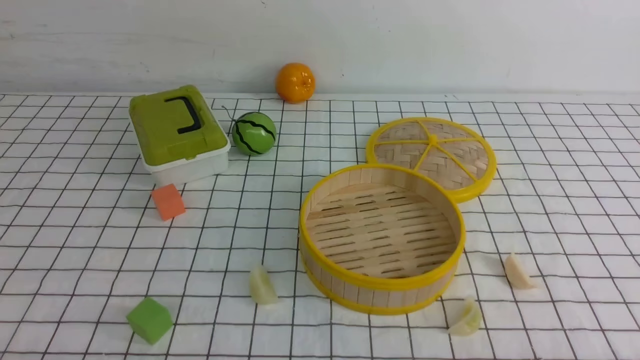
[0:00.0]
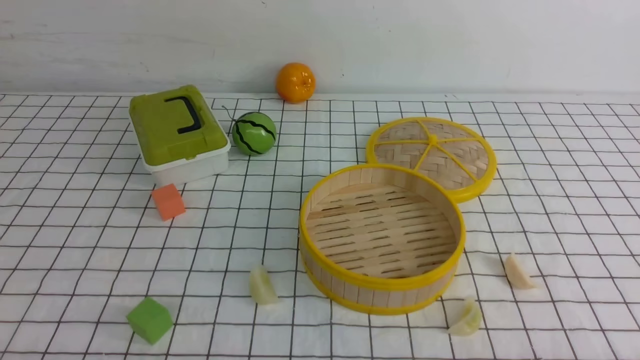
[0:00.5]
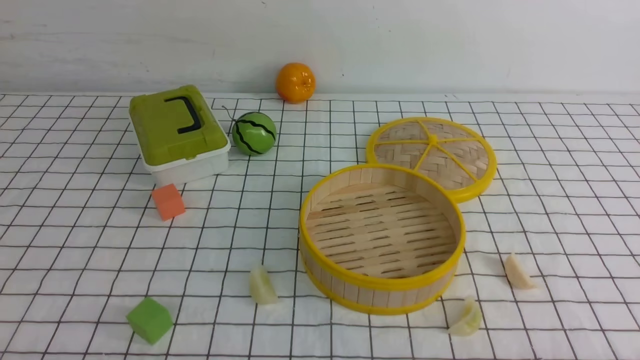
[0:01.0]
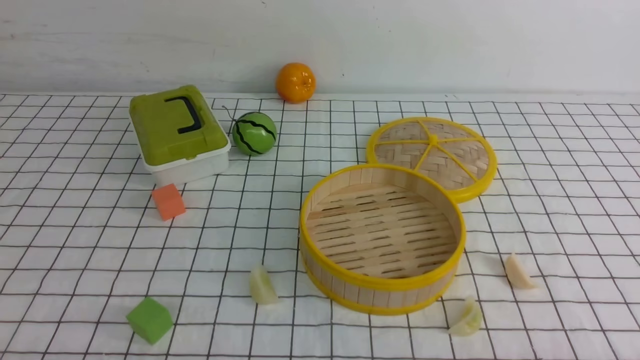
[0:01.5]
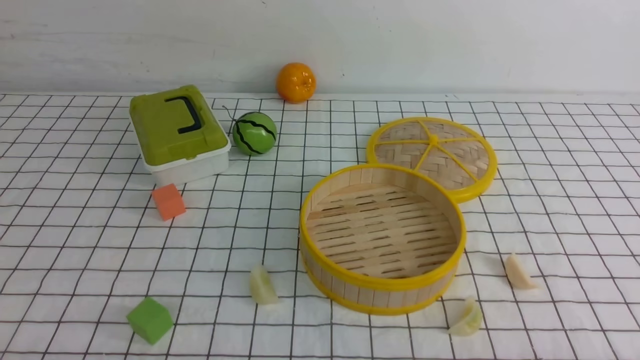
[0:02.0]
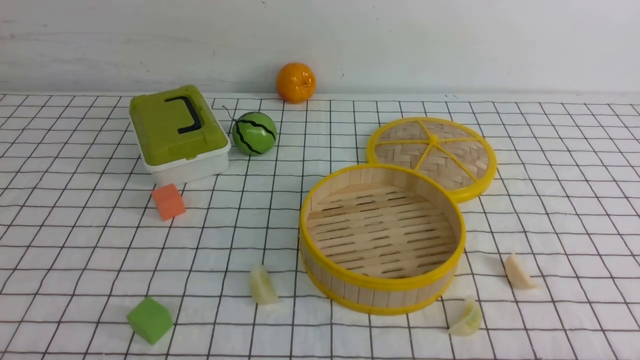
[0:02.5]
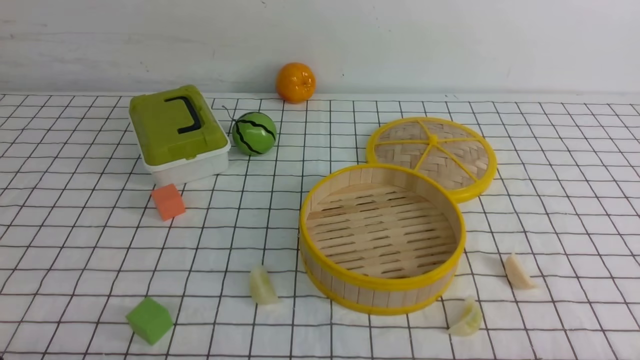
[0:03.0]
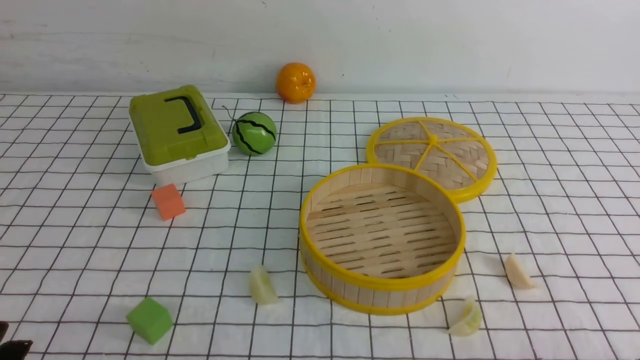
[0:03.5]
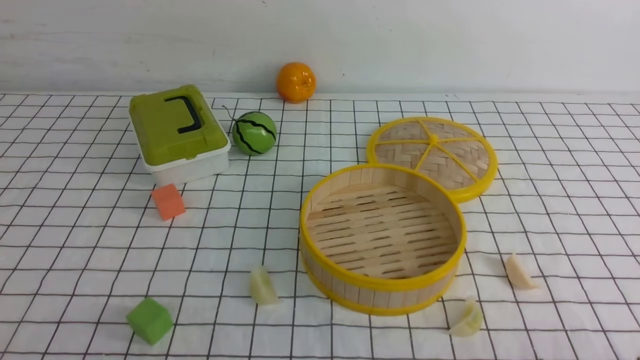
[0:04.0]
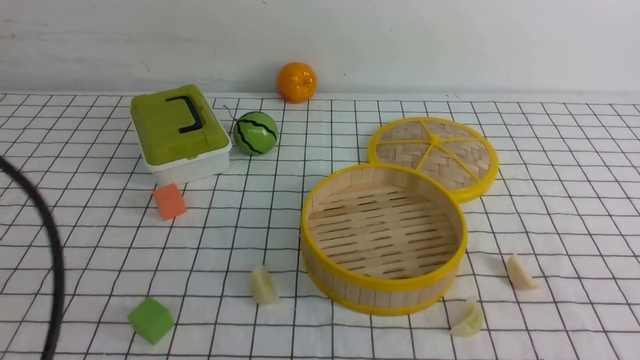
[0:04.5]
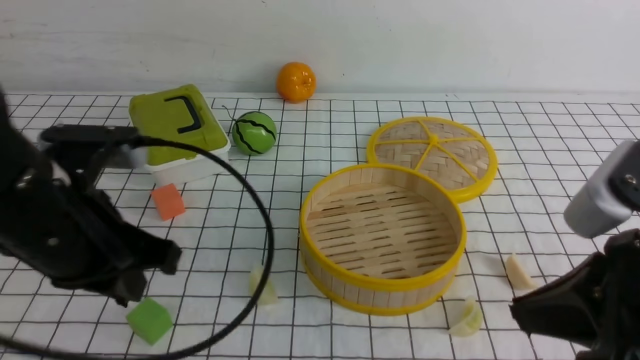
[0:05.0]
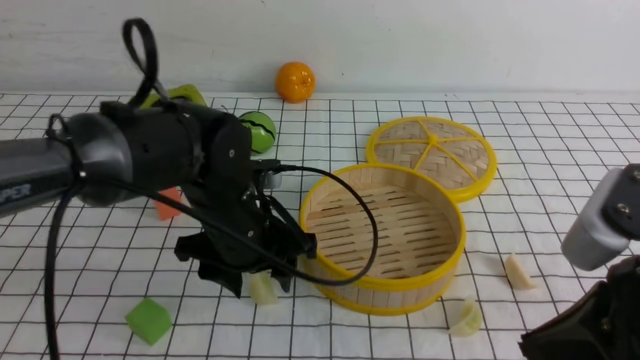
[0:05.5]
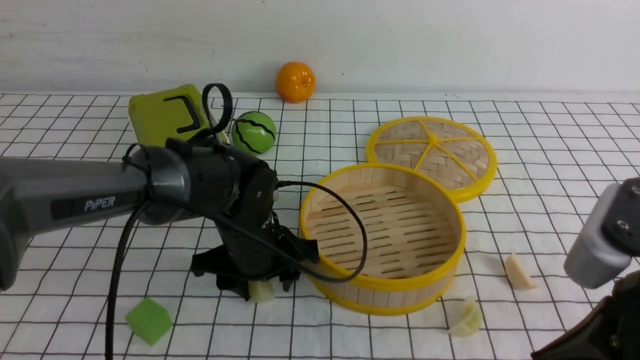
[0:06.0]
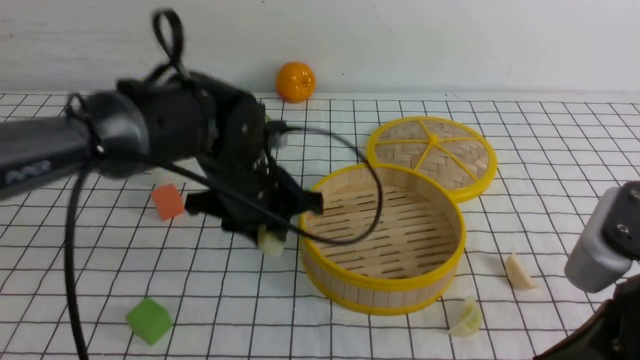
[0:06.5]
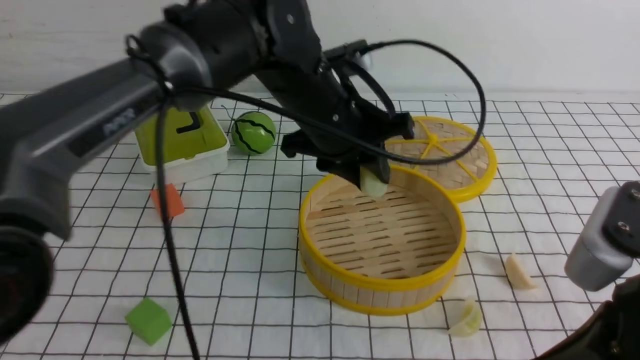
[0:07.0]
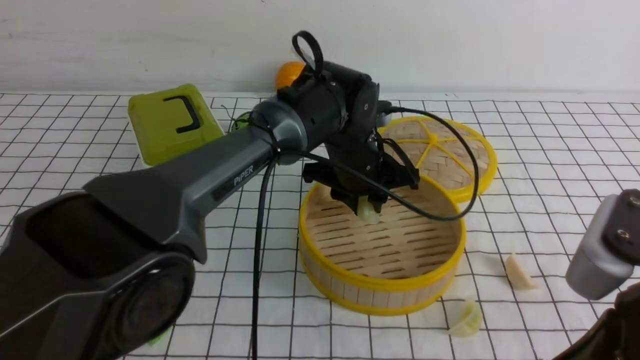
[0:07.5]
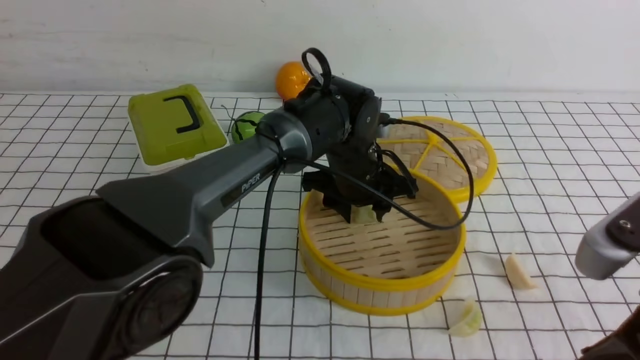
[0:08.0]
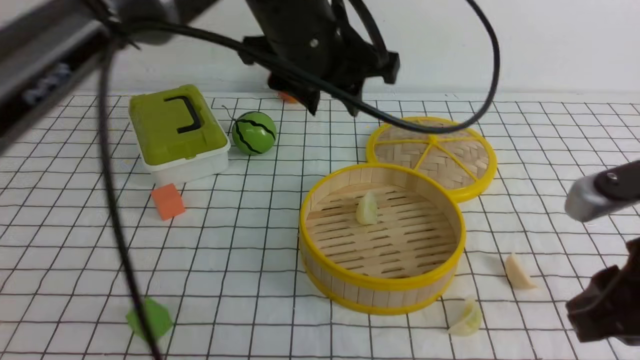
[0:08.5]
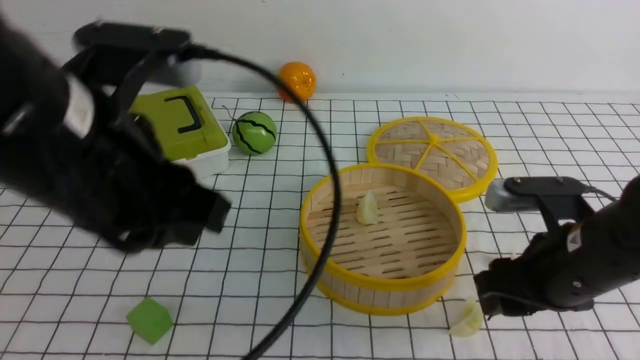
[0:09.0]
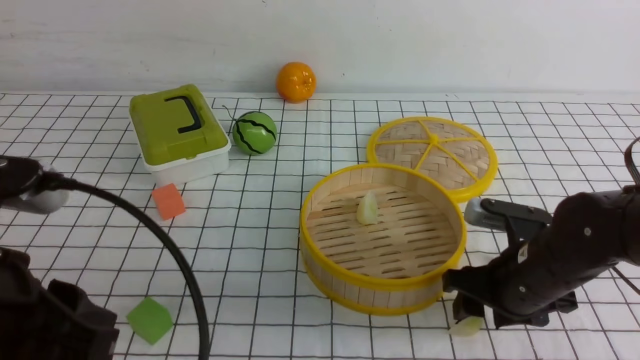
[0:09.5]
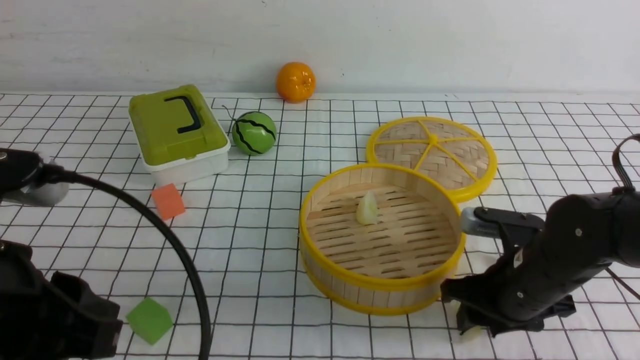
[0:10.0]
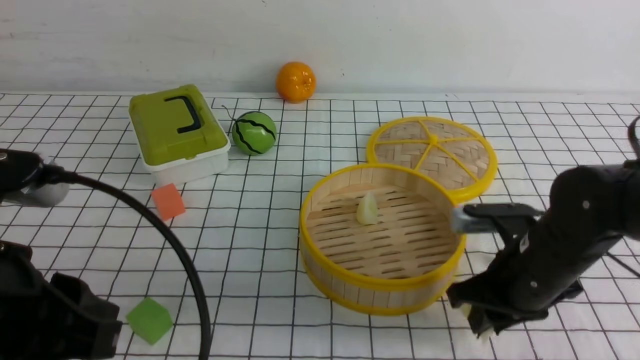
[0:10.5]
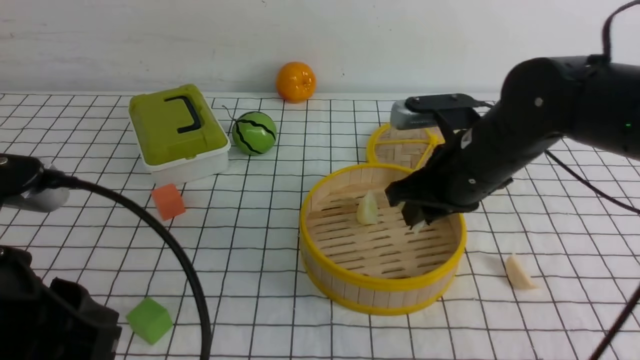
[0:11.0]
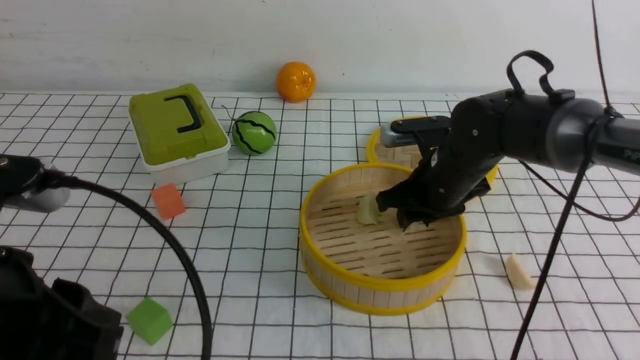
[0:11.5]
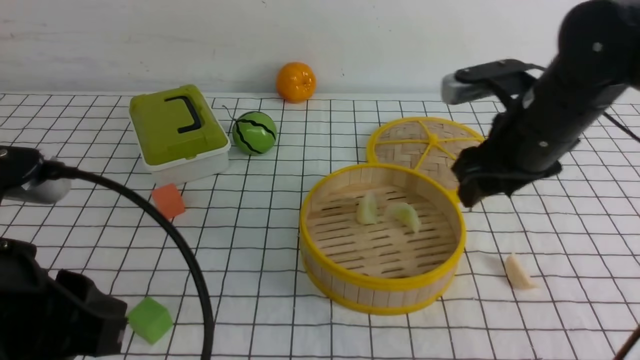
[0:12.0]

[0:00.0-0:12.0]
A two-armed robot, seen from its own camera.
Task of the whole recording: put the dumplings into the steamer on the table with the white tablecloth.
Step, 0:00.0 to 0:06.5: use the left arm to grab a dumpling.
Step, 0:07.0 to 0:08.0: use the left arm to put the dumpling into the steamer.
Step, 0:08.5 to 0:10.5: use the right arm to grab a dumpling.
0:04.0 to 0:06.0: The right gripper goes some 15 cm upward, to the left and forward, and closes up. The left gripper moves forward and to the right, roughly 35 cm, and opens up.
0:06.0 to 0:08.0: The left gripper travels to the right and forward by some 15 cm, and moves about 15 cm upward and comes back.
0:08.0 to 0:10.0: The left gripper goes about 40 cm backward, to the left and upward. Meanwhile the right gripper travels downward and forward by roughly 20 cm, and opens up.
0:10.0 to 0:12.0: The right gripper goes some 15 cm upward and forward, and closes and opens again.

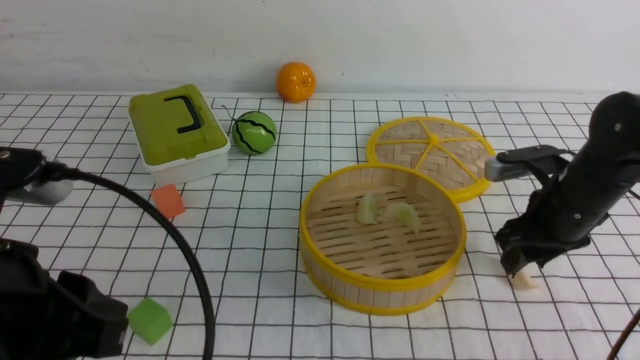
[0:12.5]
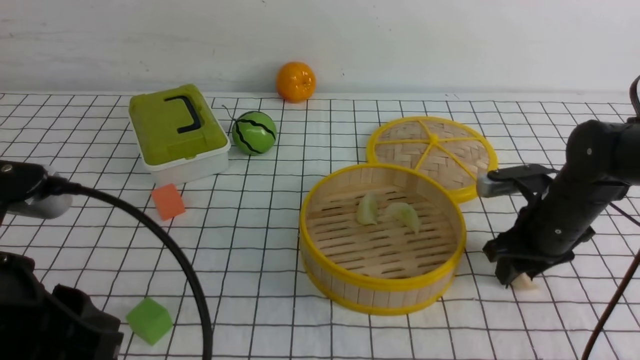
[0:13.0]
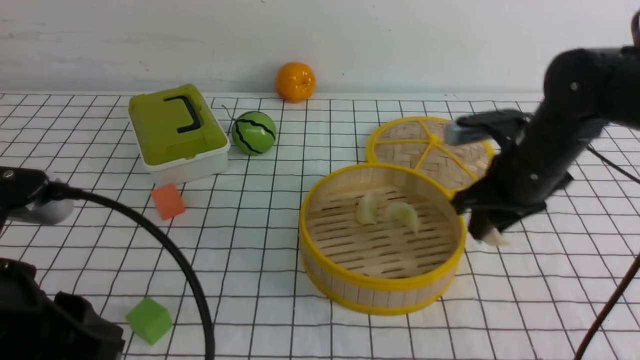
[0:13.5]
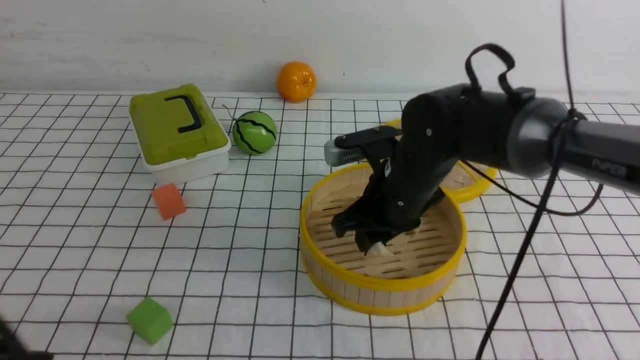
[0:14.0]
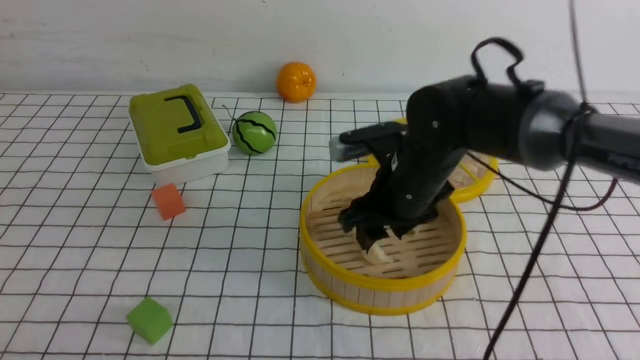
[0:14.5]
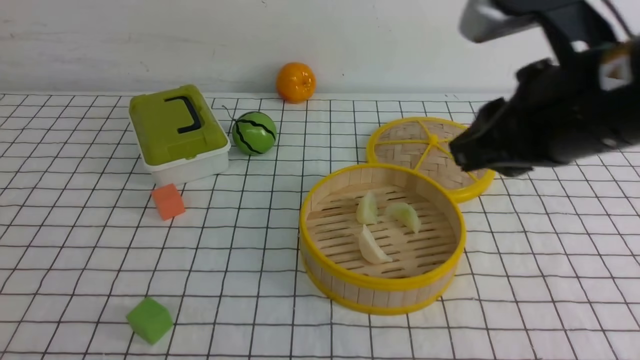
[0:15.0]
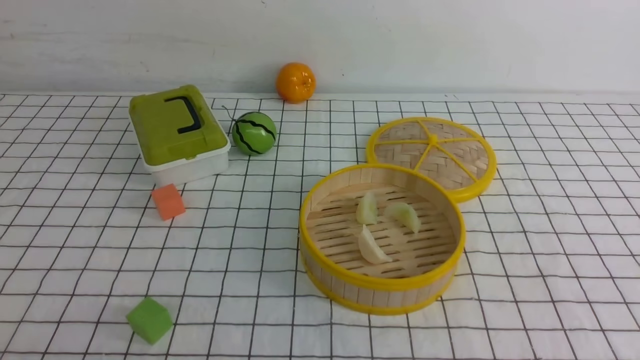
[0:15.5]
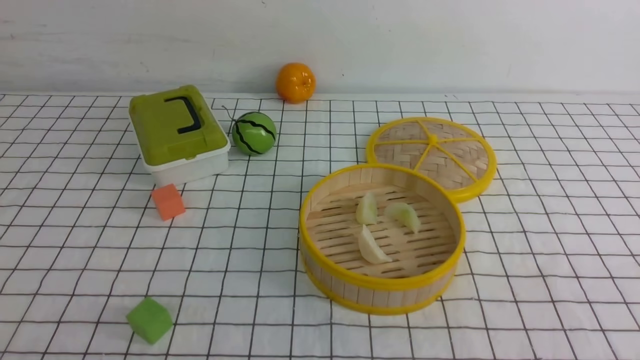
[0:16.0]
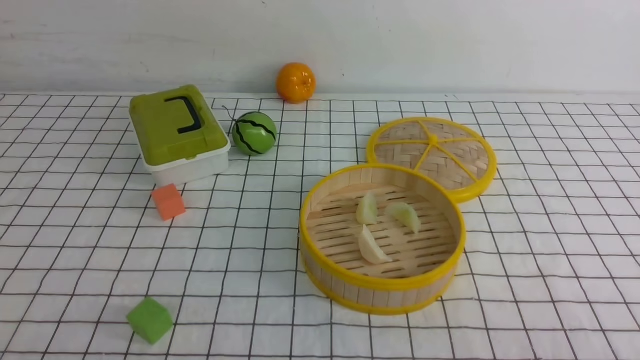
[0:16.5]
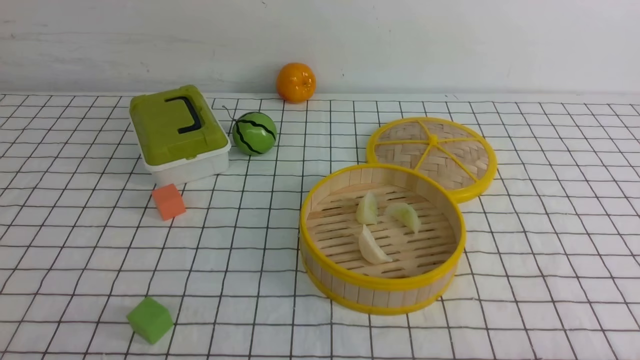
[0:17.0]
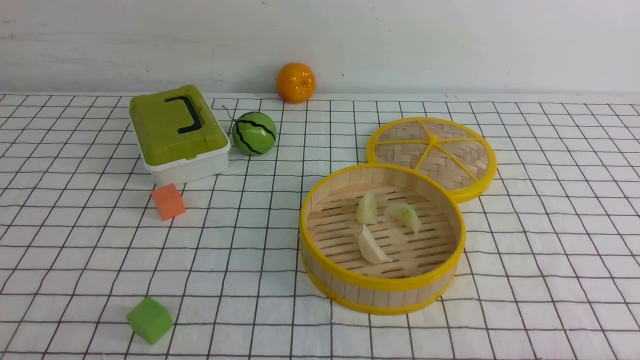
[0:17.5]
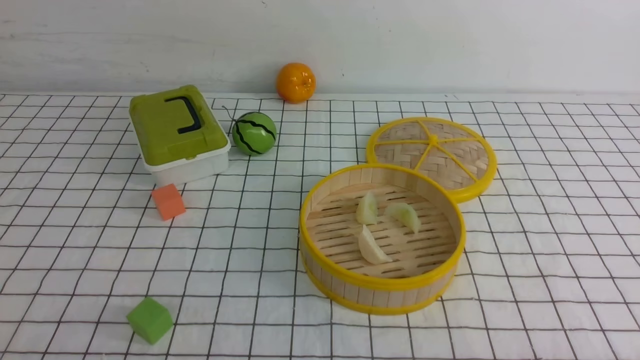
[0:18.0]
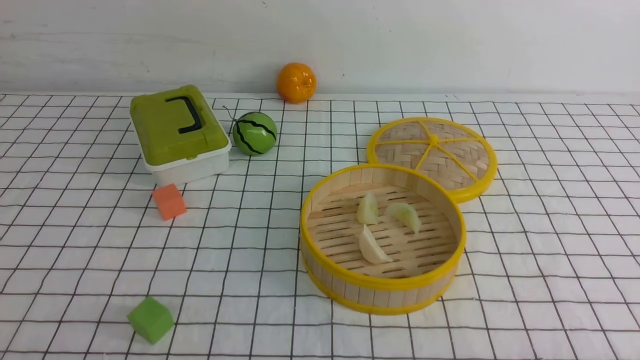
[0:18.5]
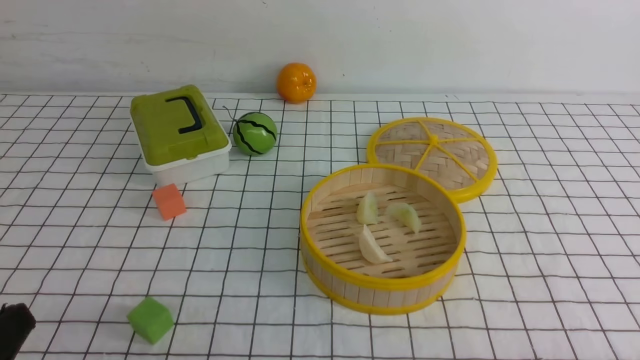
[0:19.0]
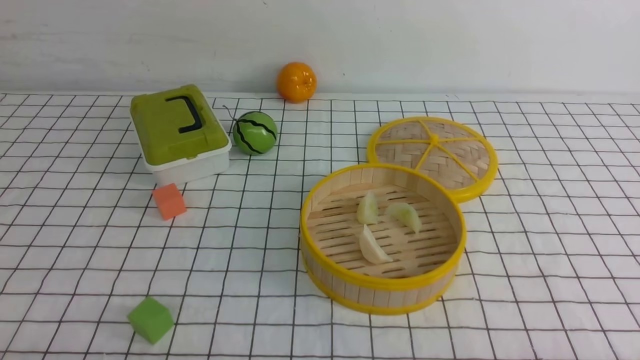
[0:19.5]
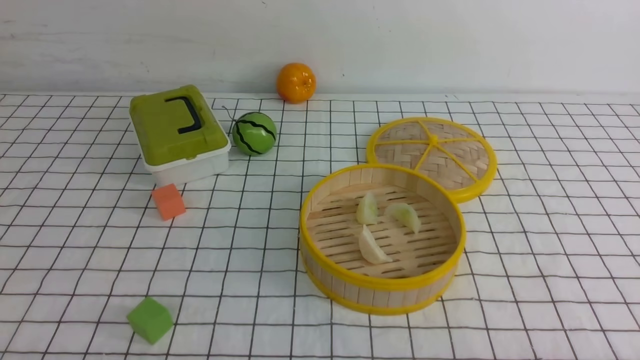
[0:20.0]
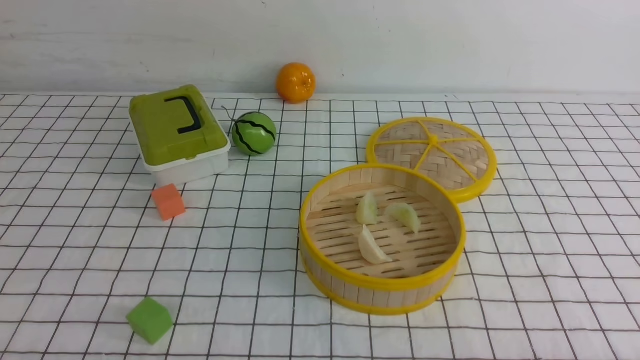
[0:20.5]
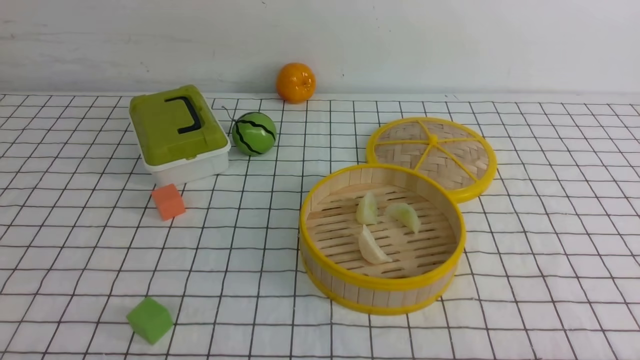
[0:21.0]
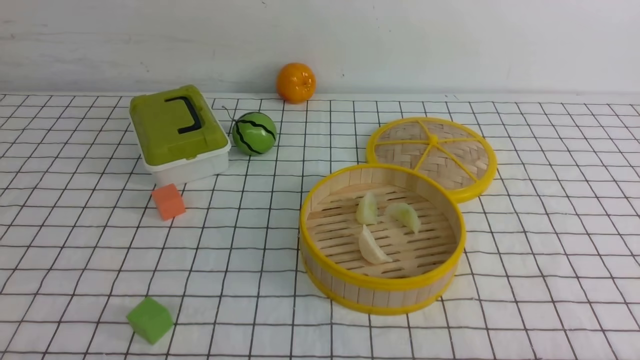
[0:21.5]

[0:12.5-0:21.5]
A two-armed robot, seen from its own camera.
Task of the whole recording: put the dumplings into the steamer on the table with the white tablecloth.
Step, 0:13.5 to 0:14.5: use the right arm to put the dumpling into the steamer.
0:12.5 to 0:14.5: The left gripper travels backward and to the left by about 10 cm; the right gripper shifts about 15 cm to the left, and closes and opens again.
0:14.5 to 0:17.0: The right gripper is displaced backward and to the right by about 40 cm, and closes.
